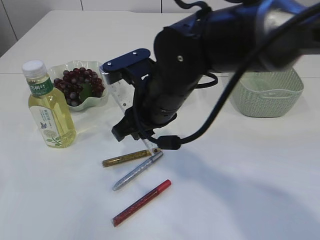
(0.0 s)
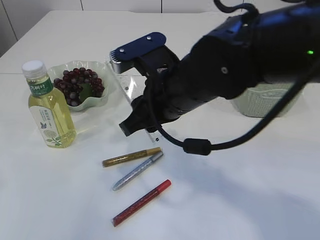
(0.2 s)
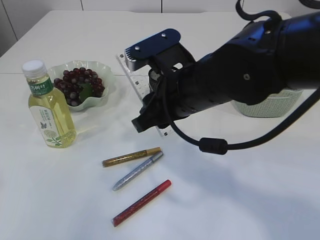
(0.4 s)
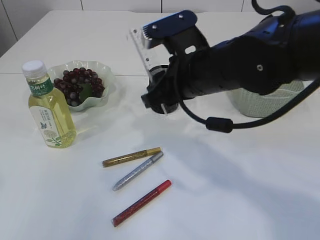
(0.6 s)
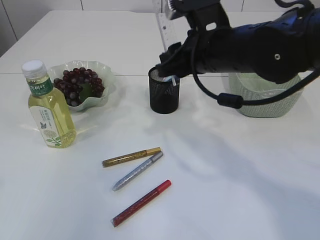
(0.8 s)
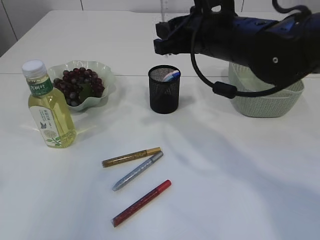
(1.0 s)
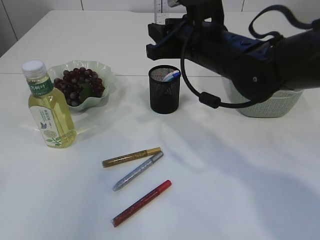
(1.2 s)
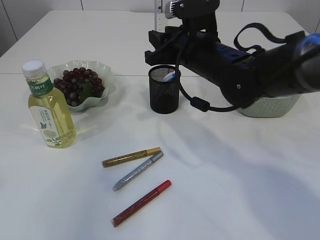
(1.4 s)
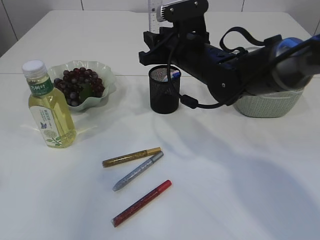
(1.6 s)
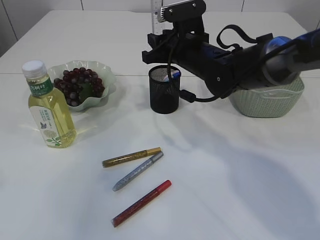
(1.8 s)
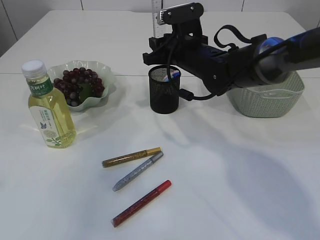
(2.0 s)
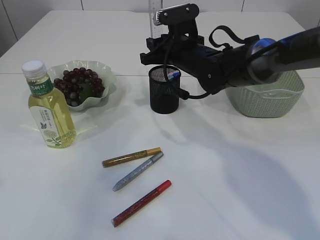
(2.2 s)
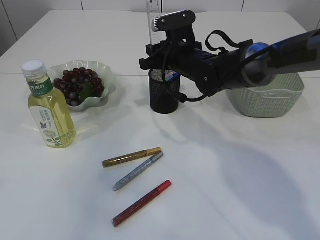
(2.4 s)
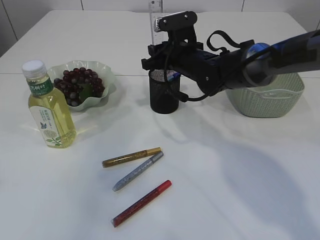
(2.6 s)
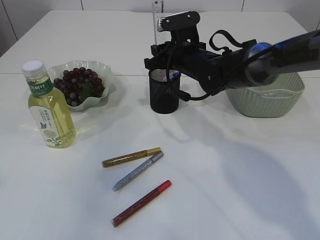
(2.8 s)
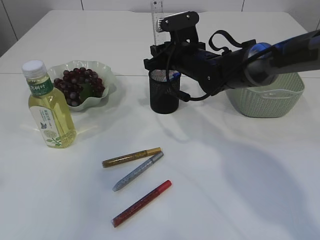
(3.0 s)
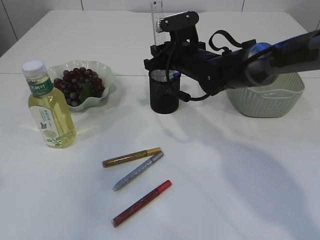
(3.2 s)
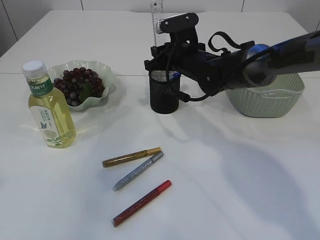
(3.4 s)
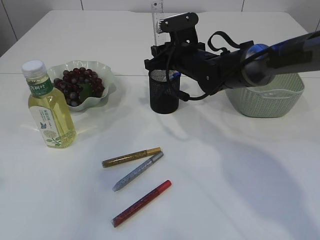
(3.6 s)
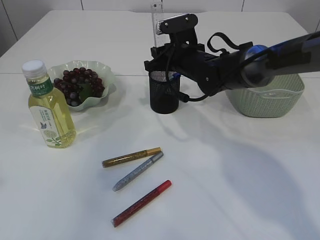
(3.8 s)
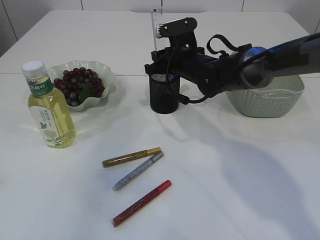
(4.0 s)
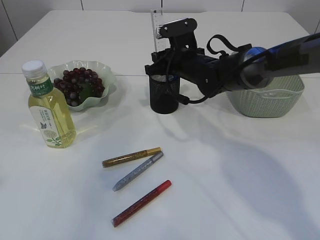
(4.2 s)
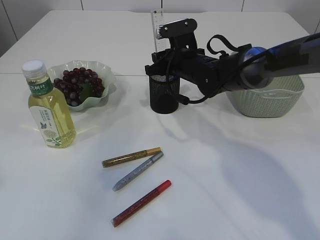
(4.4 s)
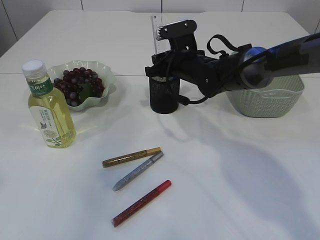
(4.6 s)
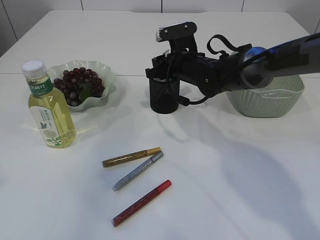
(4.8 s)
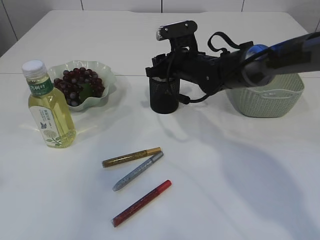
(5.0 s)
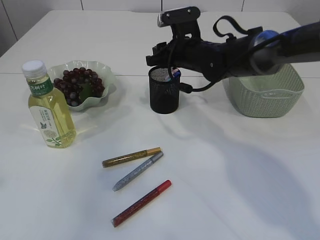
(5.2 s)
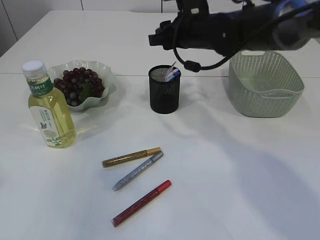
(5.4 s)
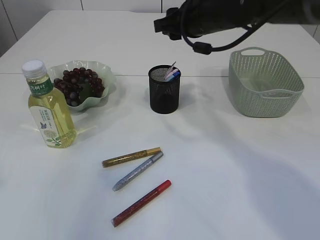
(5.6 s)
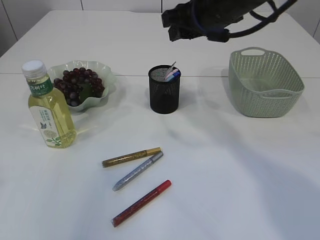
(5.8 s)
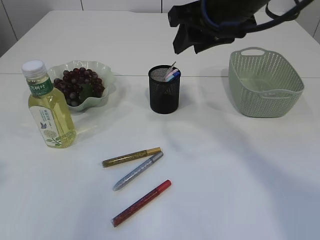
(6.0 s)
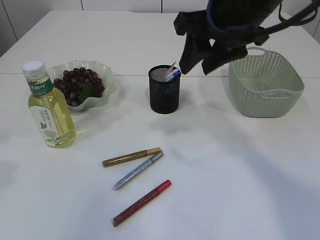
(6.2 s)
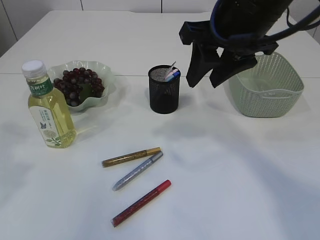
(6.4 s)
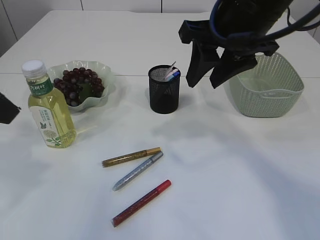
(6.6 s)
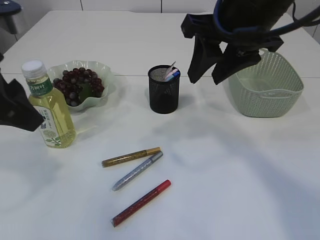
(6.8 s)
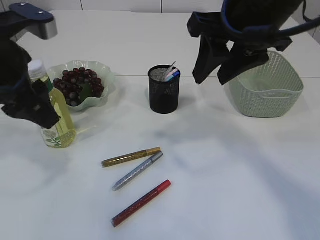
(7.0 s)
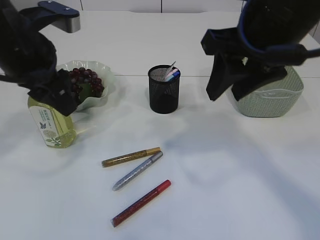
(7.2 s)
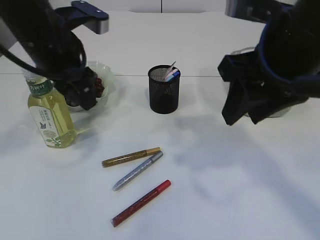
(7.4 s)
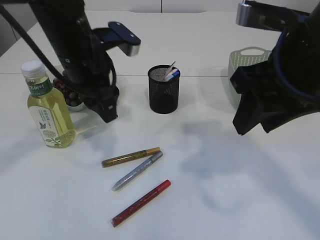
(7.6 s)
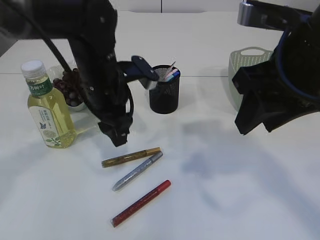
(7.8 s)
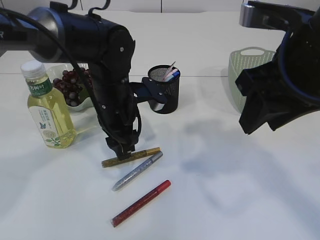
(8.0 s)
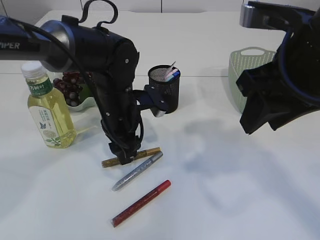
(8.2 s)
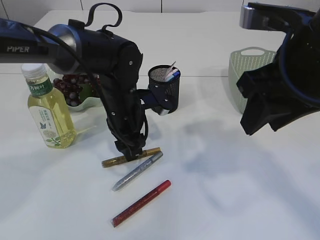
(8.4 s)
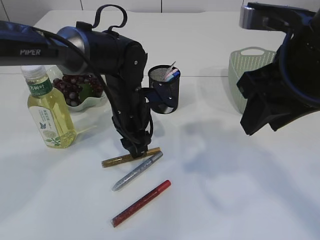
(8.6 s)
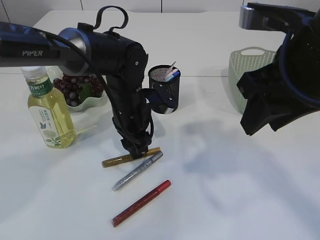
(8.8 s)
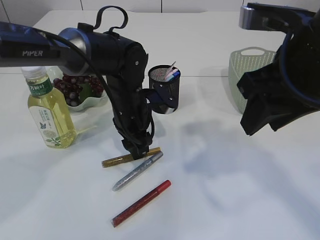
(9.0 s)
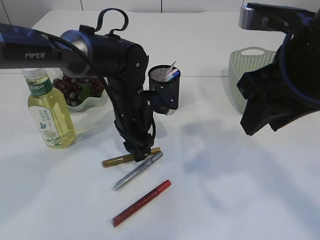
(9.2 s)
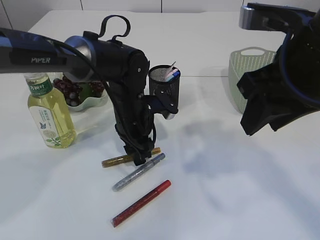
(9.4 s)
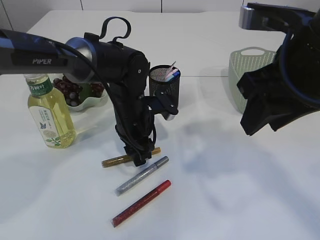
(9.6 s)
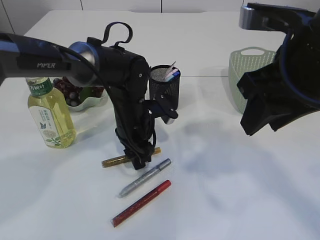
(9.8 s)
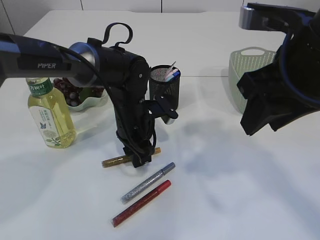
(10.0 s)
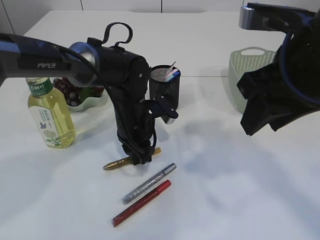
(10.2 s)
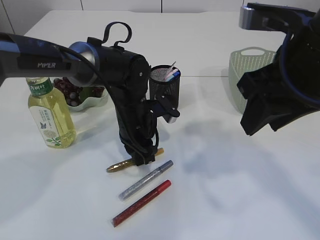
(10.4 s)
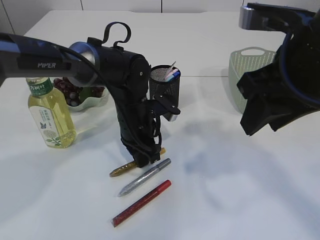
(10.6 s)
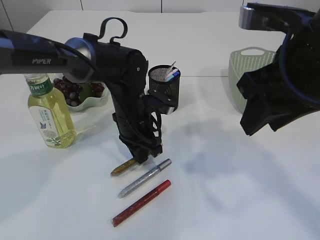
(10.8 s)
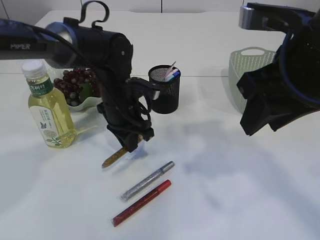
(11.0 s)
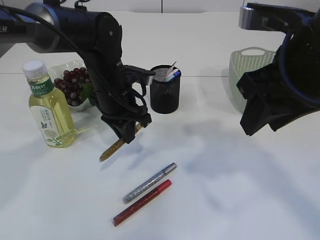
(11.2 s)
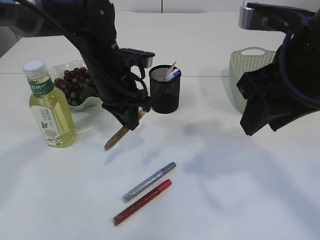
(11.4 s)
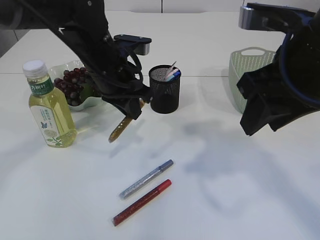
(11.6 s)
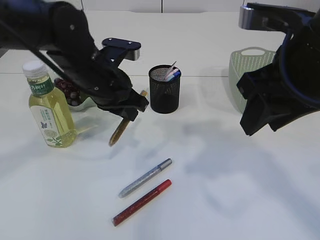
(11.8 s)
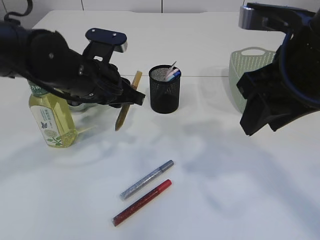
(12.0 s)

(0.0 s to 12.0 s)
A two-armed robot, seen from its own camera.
Step, 0.0 s - 5.4 s: Place the ruler into the pen holder.
Step, 5.6 s - 11.6 s: pick up the yellow glue.
0.0 s - 1.6 s: The right gripper goes about 10 cm forward and to the right.
1.6 s - 3.0 s: The right gripper travels forward by about 5 cm.
3.0 s - 4.4 s: The grippers stay close to where they were, moving slightly.
4.4 s - 6.0 s: The right gripper travels upward and backward by roughly 20 cm.
6.0 s - 7.6 s: The right gripper heads backward, covering about 10 cm. Meanwhile the left gripper is displaced to the right, forward and downward by about 25 cm.
7.6 s - 9.0 s: The left gripper is displaced downward and to the right by about 15 cm.
9.0 s - 10.4 s: The left gripper closes.
10.4 s - 12.0 s: The left gripper shifts approximately 10 cm upward and to the left.

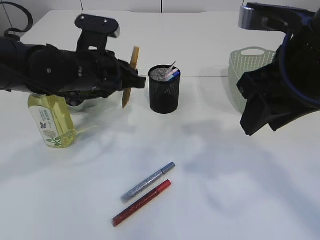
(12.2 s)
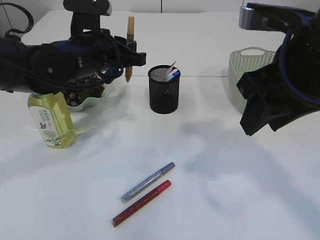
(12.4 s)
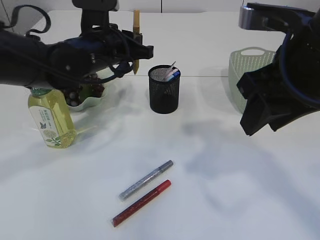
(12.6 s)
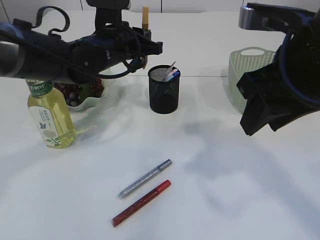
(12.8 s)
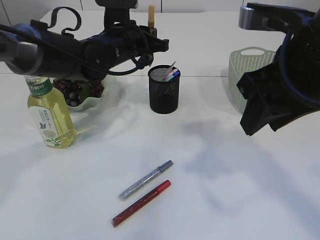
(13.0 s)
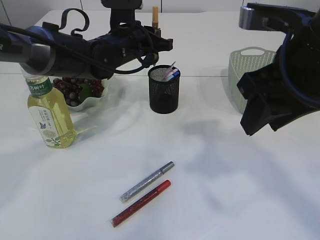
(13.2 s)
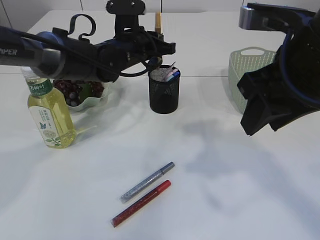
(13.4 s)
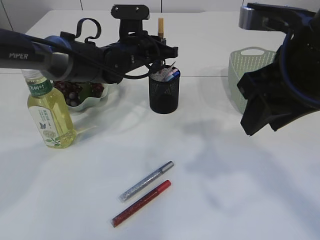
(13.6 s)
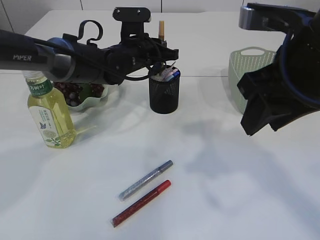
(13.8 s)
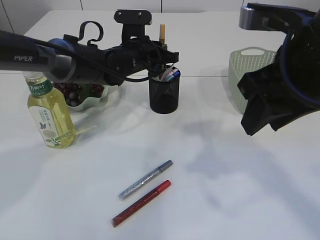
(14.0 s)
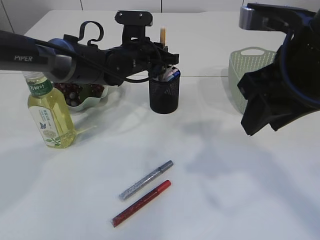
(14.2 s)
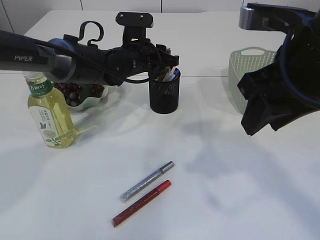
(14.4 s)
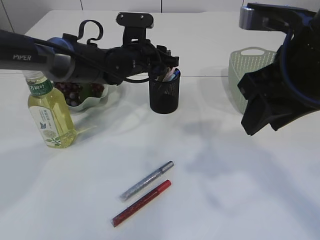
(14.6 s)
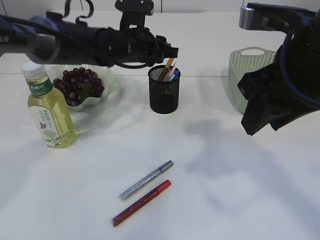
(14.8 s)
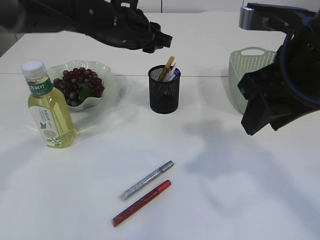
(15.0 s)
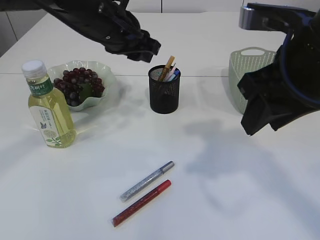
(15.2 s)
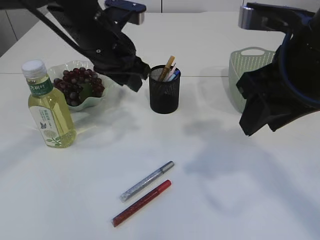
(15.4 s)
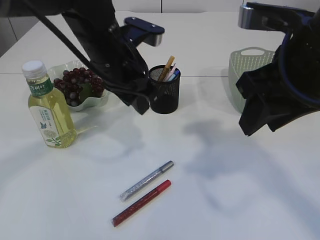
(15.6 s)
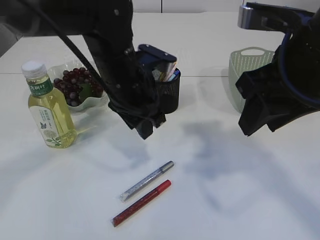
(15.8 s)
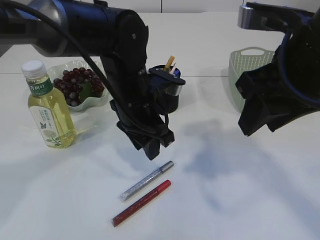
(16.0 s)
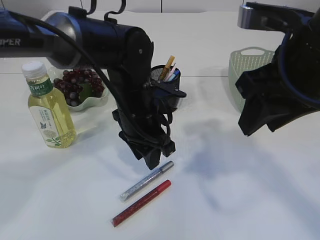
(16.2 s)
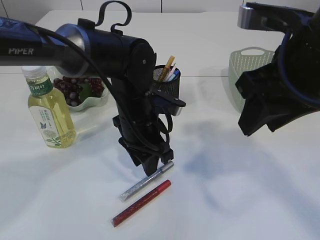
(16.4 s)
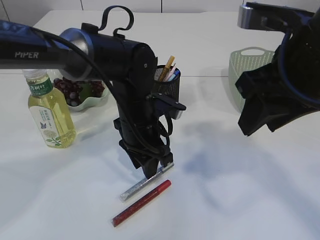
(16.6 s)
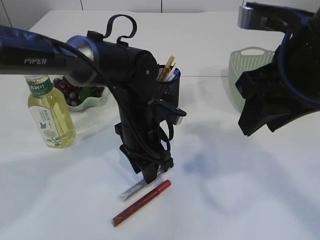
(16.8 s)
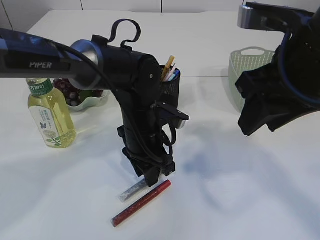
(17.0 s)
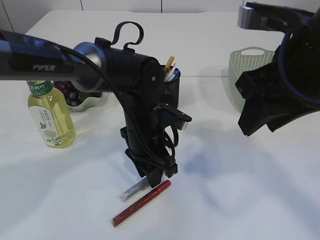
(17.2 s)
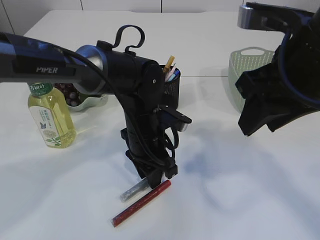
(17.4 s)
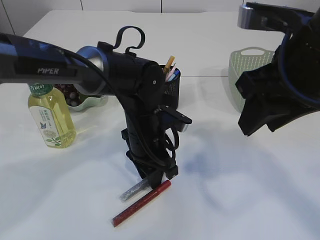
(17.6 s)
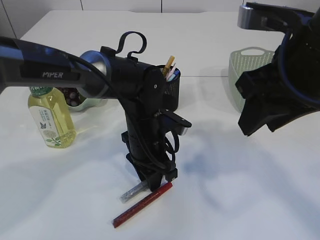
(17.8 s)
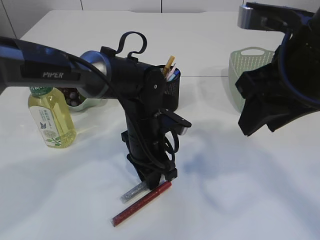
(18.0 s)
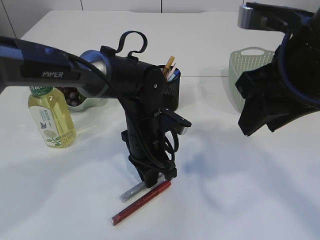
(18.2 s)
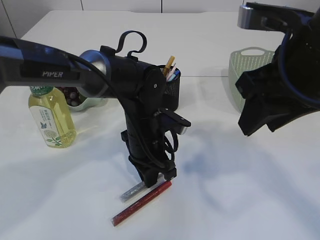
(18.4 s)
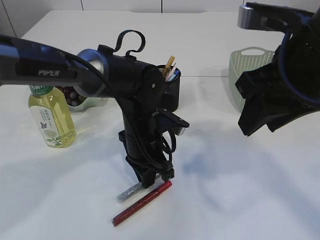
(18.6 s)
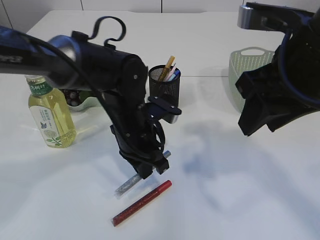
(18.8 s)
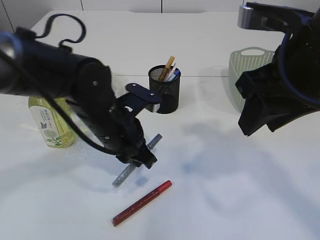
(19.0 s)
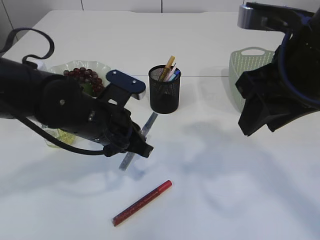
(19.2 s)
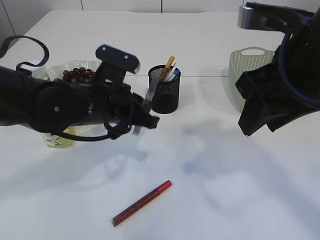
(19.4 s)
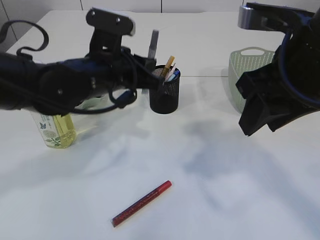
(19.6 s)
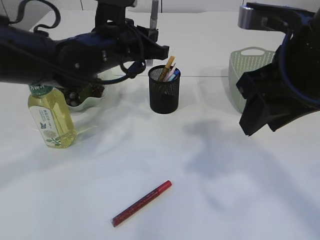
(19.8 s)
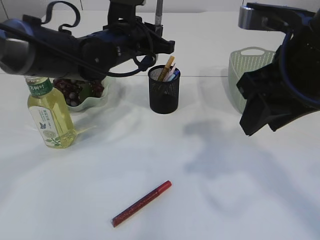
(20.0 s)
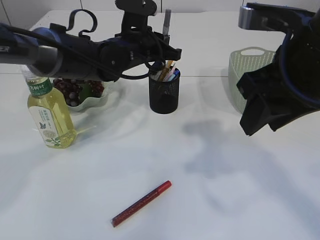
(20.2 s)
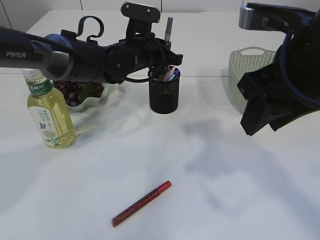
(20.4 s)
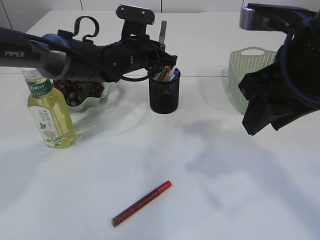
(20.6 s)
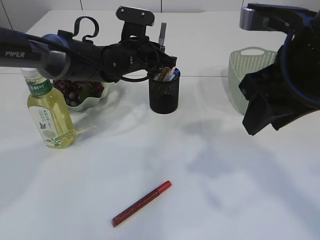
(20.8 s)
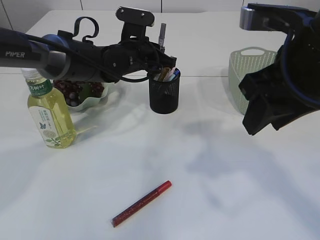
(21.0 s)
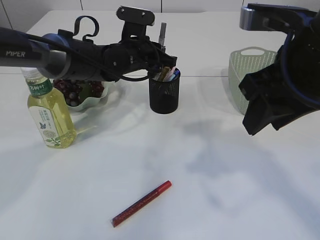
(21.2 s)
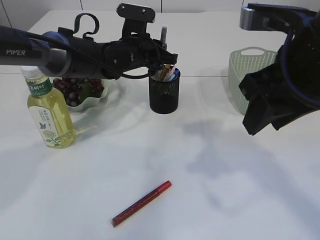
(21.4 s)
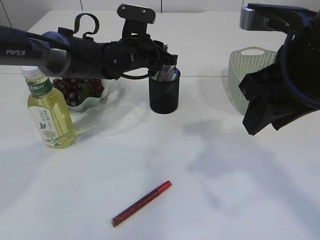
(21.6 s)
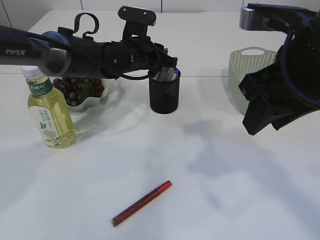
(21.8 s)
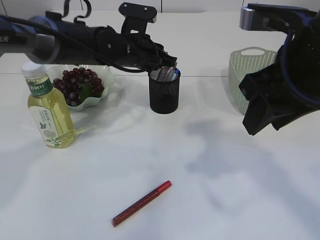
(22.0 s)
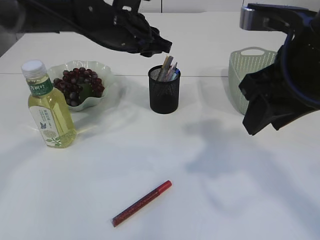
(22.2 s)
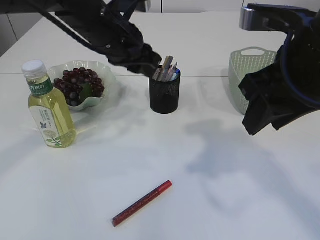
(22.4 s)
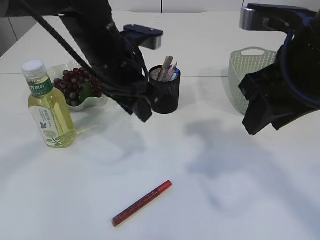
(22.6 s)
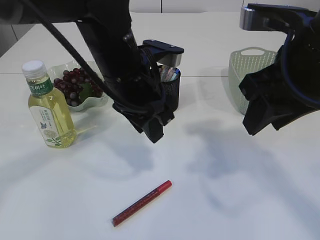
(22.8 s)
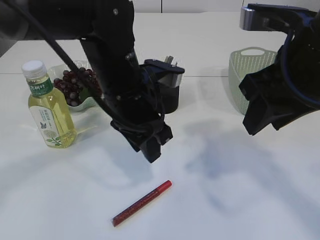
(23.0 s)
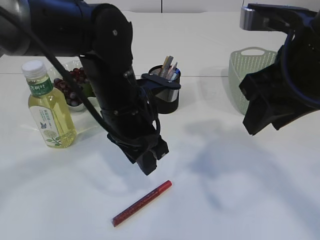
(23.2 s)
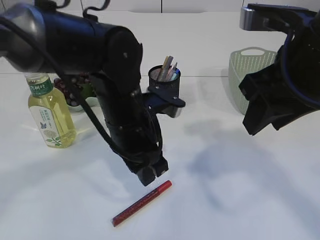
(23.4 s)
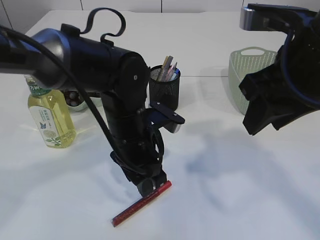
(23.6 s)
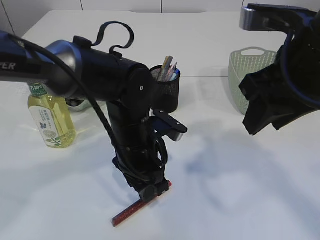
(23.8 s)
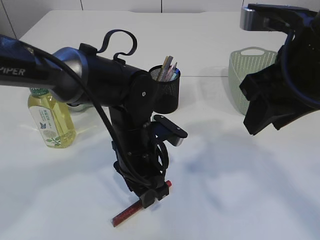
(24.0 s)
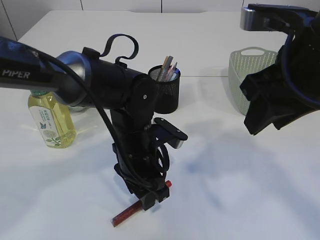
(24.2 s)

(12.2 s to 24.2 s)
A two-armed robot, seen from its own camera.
Step, 12.2 s - 15.2 s: place the yellow glue into the pen holder.
Step, 15.4 s - 19.2 s: pick up the silver glue.
Step, 19.4 s - 22.2 s: place the silver glue into the pen holder.
12.2 s - 13.8 s: The left gripper travels forward and to the right by roughly 10 cm.
13.8 s - 15.2 s: The left gripper heads upward and backward, covering approximately 10 cm, and opens up.
15.2 s - 16.6 s: The left gripper is displaced downward and backward by some 15 cm.
16.6 s - 18.2 s: The left gripper closes up.
18.2 s - 19.8 s: The left gripper travels upward by some 15 cm.
19.8 s - 21.2 s: The left gripper goes roughly 10 cm forward and downward.
21.2 s - 22.6 s: The left gripper goes roughly 10 cm backward and upward, and opens its fingers.
22.6 s - 24.2 s: The left gripper moves downward and backward, some 15 cm.
